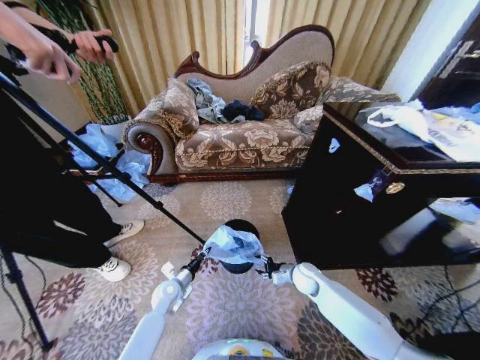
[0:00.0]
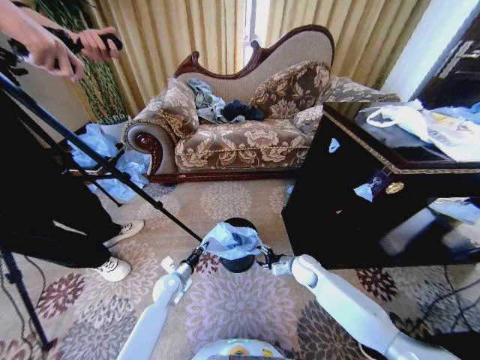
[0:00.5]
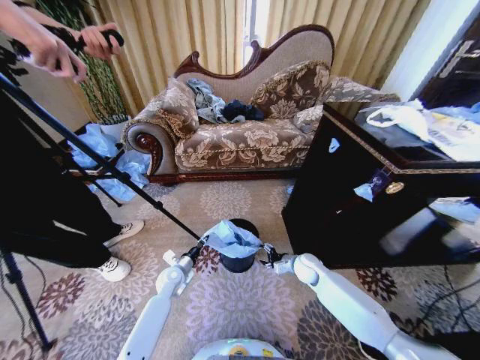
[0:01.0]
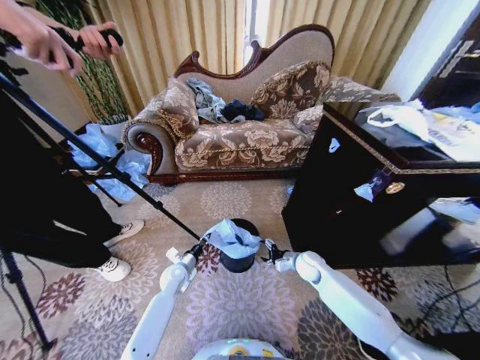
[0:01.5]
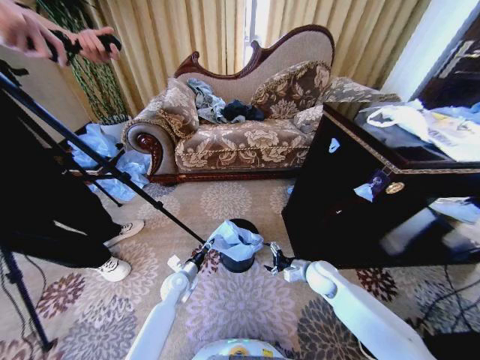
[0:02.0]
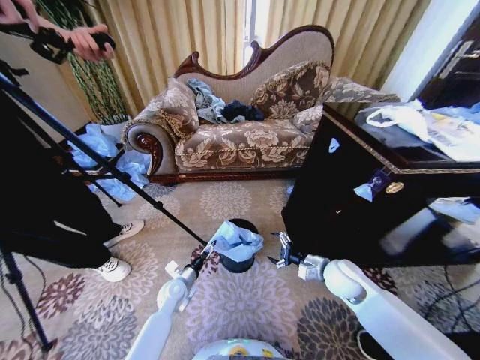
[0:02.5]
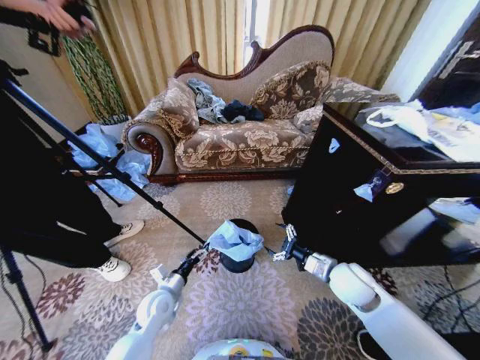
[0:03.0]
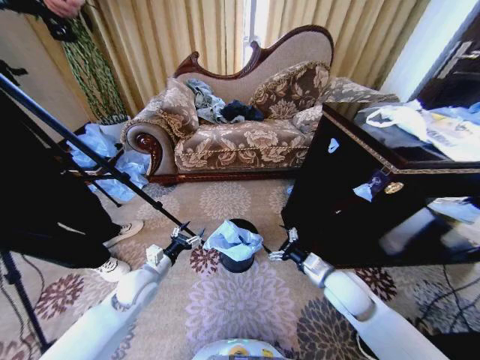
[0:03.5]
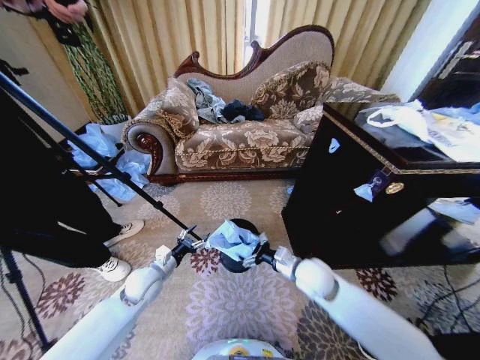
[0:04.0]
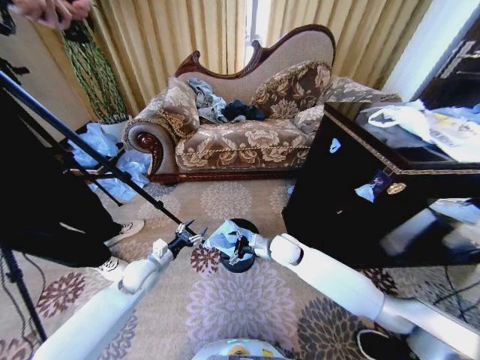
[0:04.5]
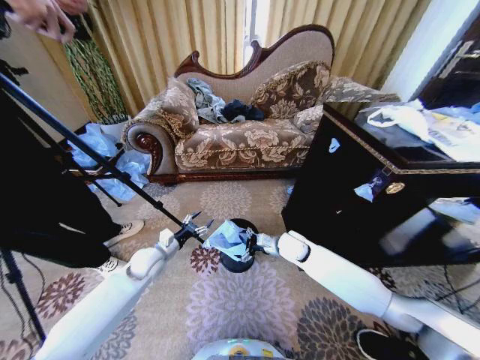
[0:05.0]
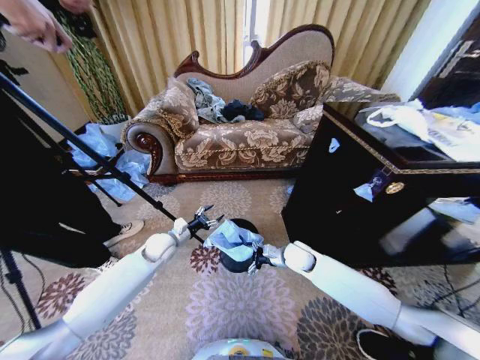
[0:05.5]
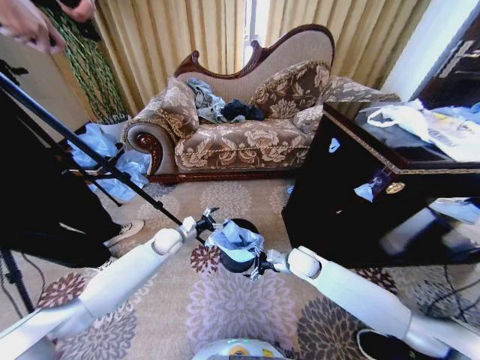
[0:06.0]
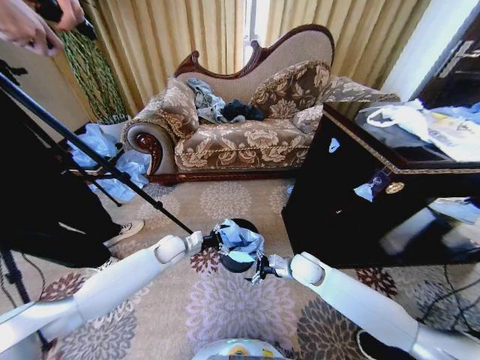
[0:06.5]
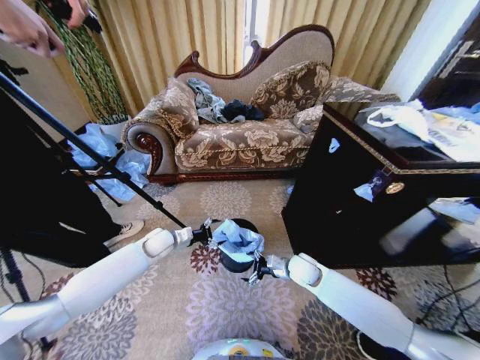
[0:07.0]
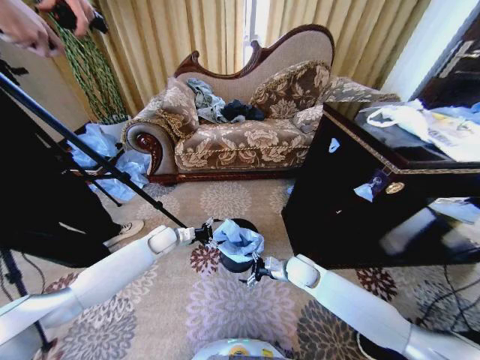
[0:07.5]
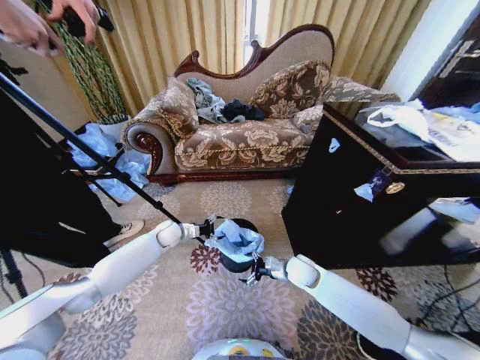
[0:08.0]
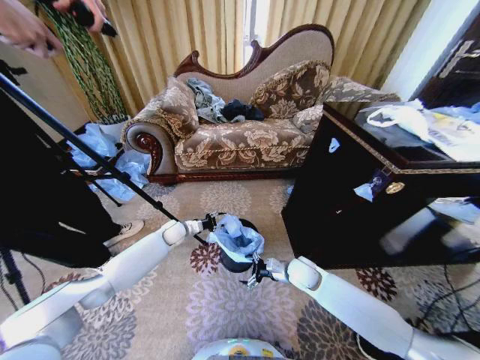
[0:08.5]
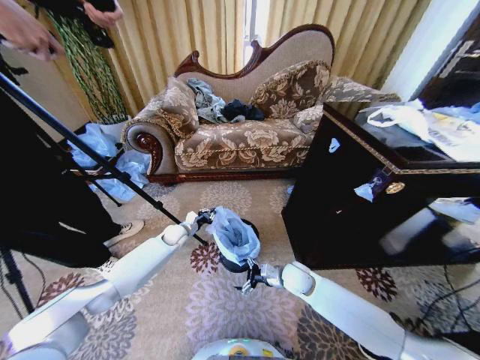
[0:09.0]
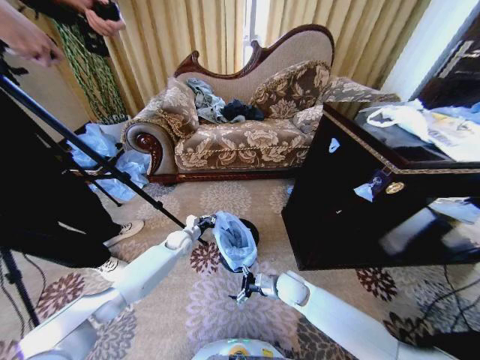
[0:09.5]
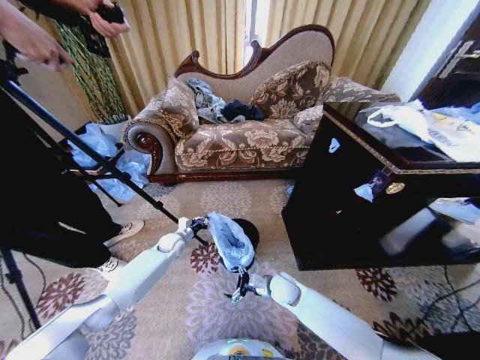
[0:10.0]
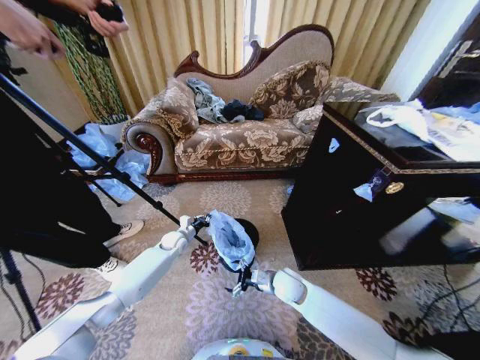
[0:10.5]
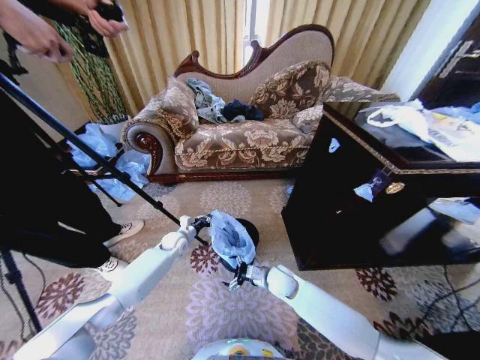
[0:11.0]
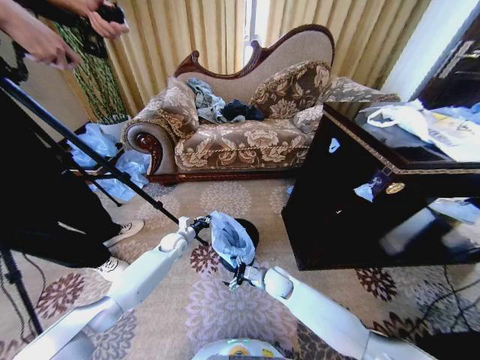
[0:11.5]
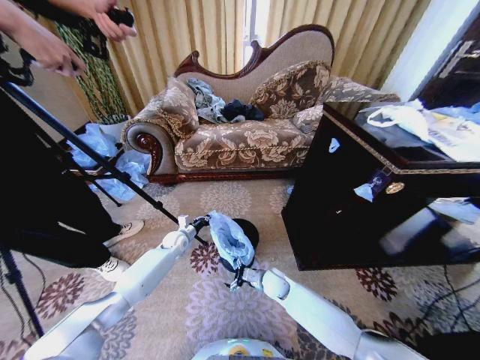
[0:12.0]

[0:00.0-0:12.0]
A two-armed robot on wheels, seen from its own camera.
Task of the whole recording: Place a garbage bag over the trash bin.
0:00.0 to 0:02.0: The right gripper shifts roughly 5 cm upward, and opens its fingers.
0:02.0 to 0:04.0: Both grippers move upward and to the left, about 10 cm. The left gripper opens its fingers.
0:04.0 to 0:06.0: The right gripper heads forward and downward, covering roughly 10 cm. Meanwhile the left gripper travels forward by about 15 cm.
0:08.0 to 0:10.0: The right gripper heads downward and to the left, covering approximately 10 cm, while the left gripper shifts approximately 5 cm downward, and closes.
0:10.0 to 0:12.0: The grippers make only small movements.

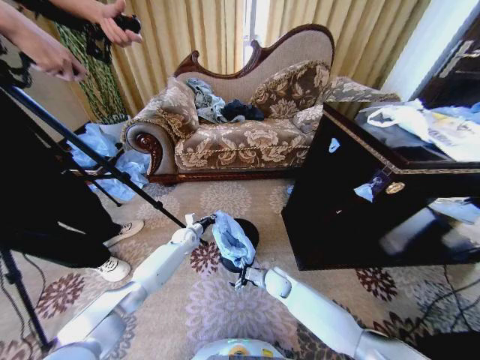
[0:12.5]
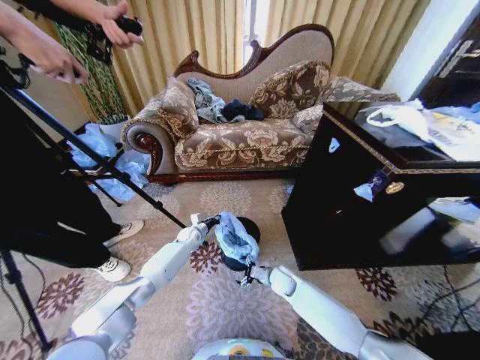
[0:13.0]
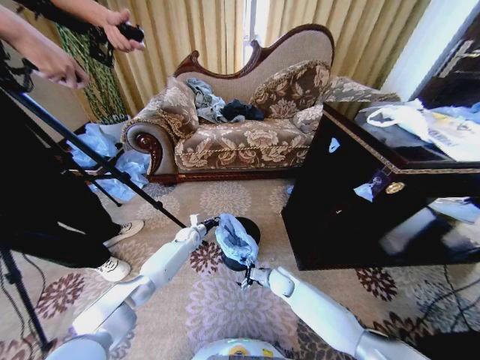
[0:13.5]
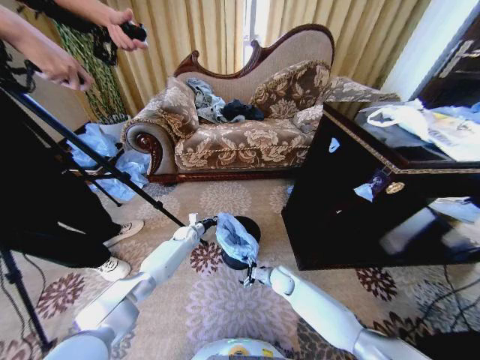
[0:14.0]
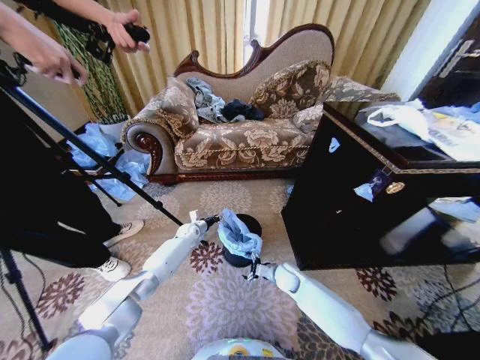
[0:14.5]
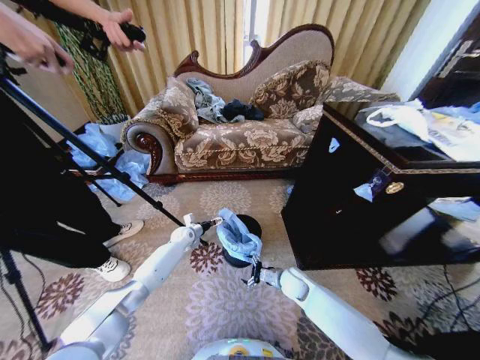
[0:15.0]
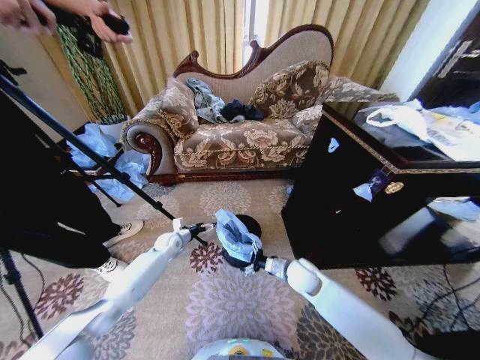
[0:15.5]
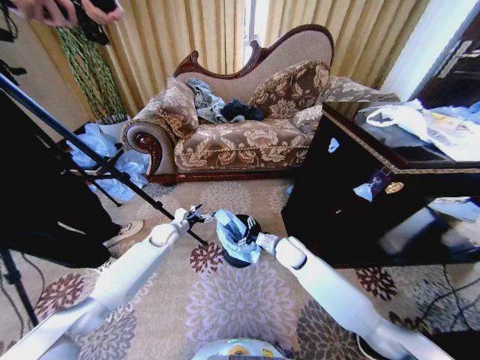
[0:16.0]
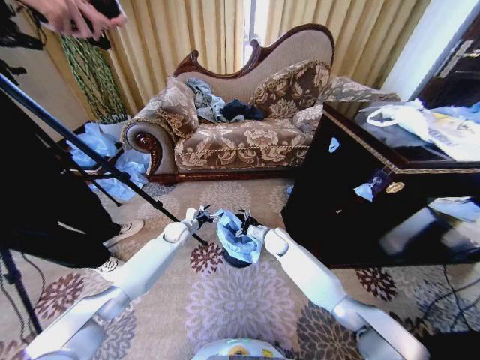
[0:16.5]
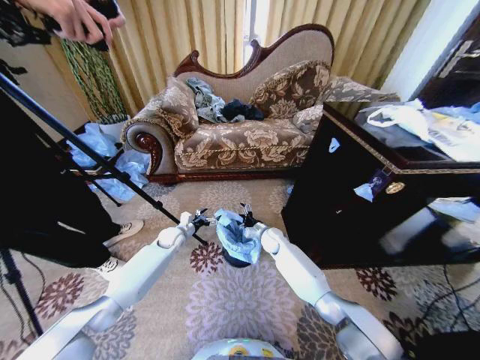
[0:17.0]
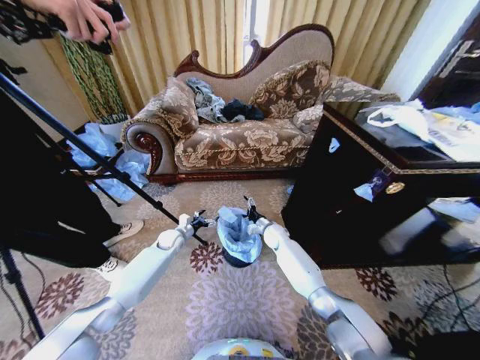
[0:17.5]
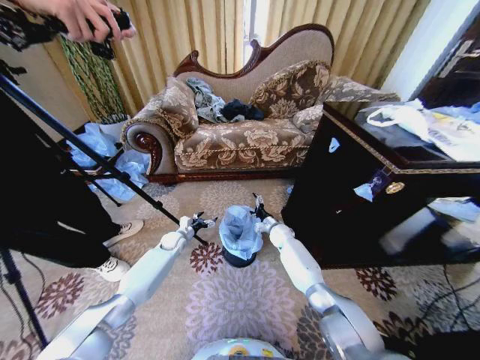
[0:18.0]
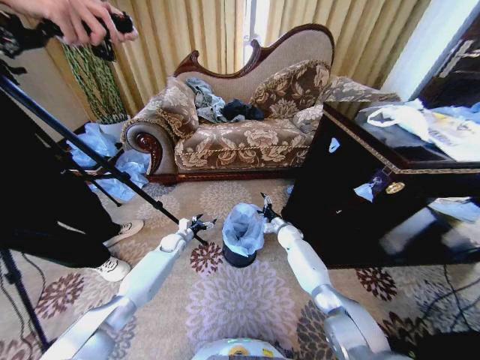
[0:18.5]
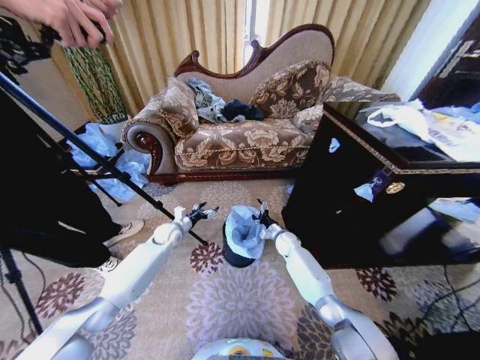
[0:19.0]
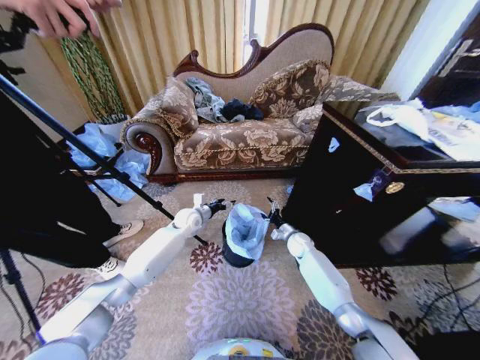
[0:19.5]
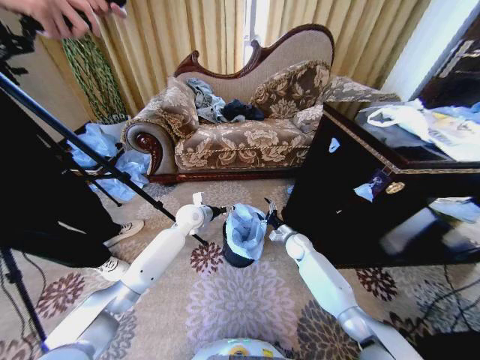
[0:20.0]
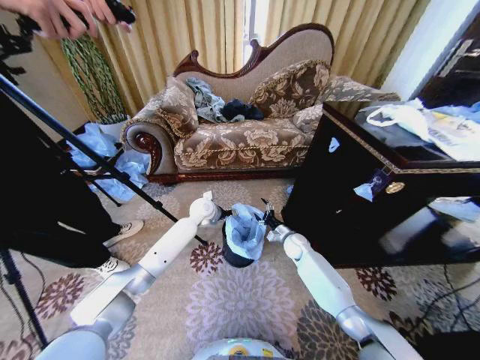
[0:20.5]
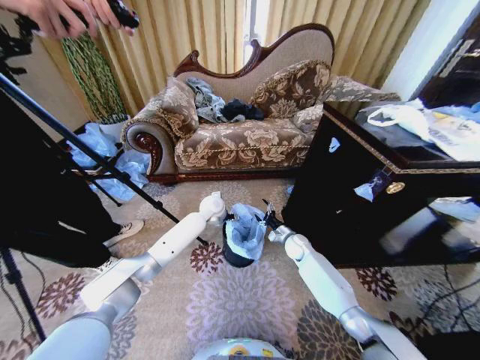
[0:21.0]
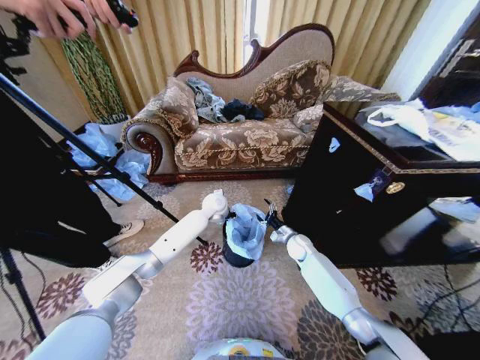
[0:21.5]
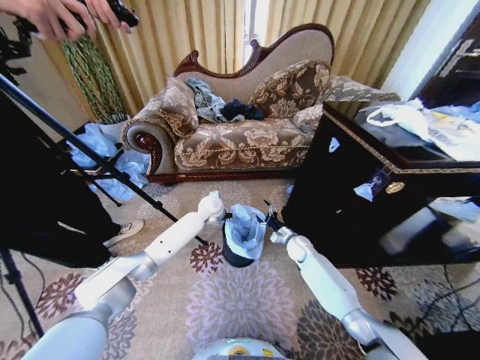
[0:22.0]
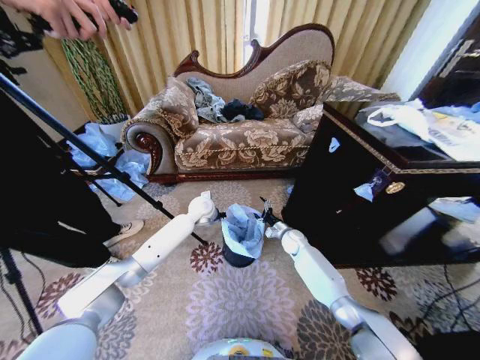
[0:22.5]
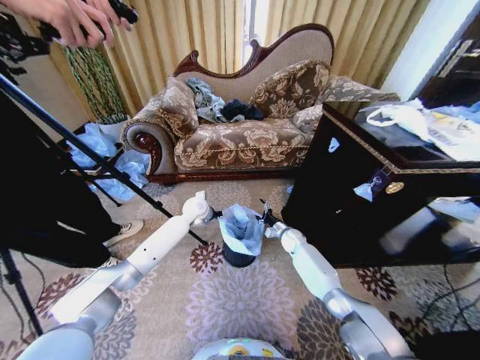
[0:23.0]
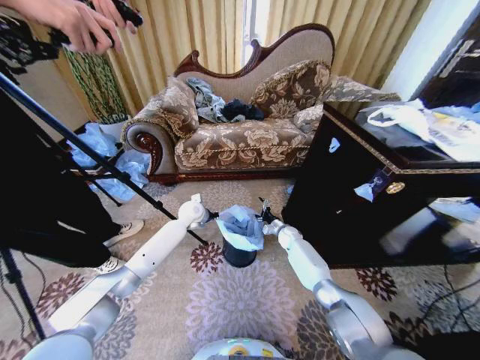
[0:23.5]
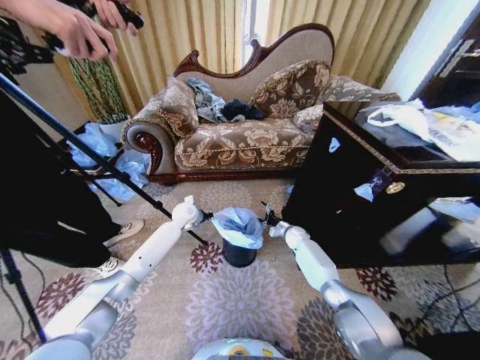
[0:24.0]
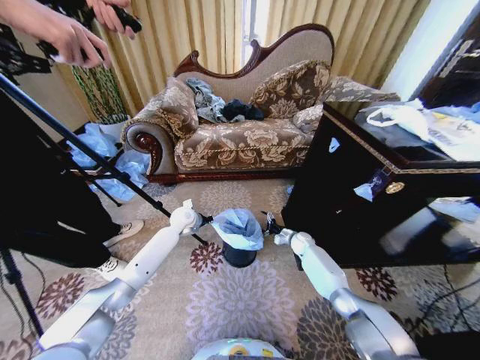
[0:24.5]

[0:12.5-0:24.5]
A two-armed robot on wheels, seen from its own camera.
Task of the whole recording: Place a garbage bag over the trash bin.
0:12.5 to 0:14.5: The left gripper opens.
0:14.5 to 0:16.5: The left gripper shifts some 5 cm upward, and opens up; the right gripper heads forward and upward, covering some 15 cm.
0:16.5 to 0:18.5: The left gripper is displaced downward by approximately 5 cm. The right gripper moves to the right, downward and forward, roughly 10 cm.
0:18.5 to 0:20.5: The right gripper moves backward, roughly 5 cm; the left gripper heads upward and to the right, covering roughly 25 cm.
0:20.5 to 0:22.5: The left gripper closes.
0:22.5 to 0:24.5: The left gripper is displaced to the left by approximately 10 cm; the right gripper shifts some 5 cm to the right.

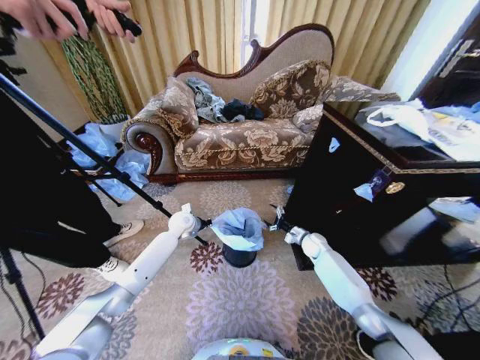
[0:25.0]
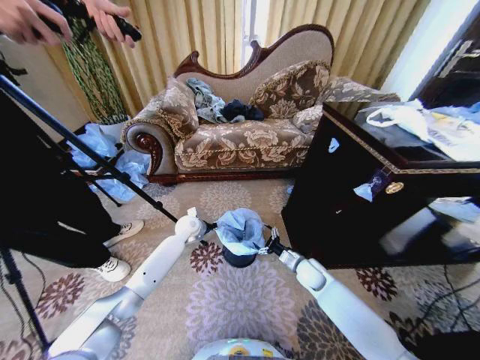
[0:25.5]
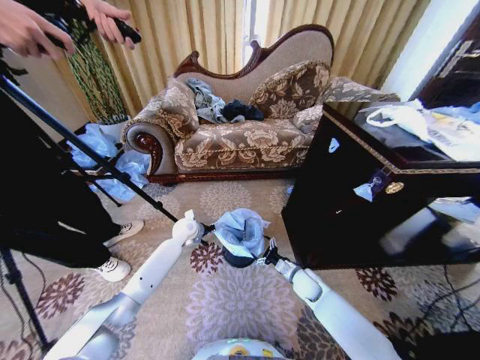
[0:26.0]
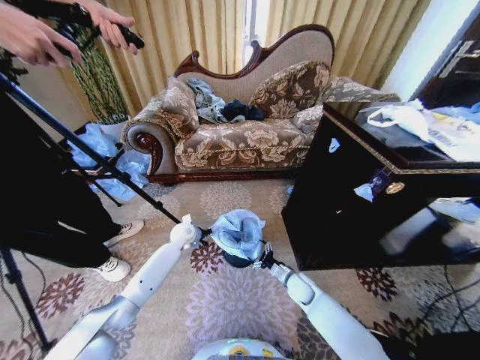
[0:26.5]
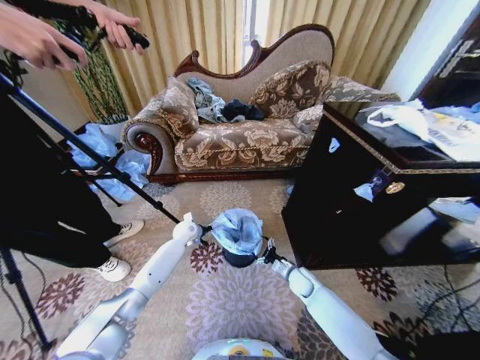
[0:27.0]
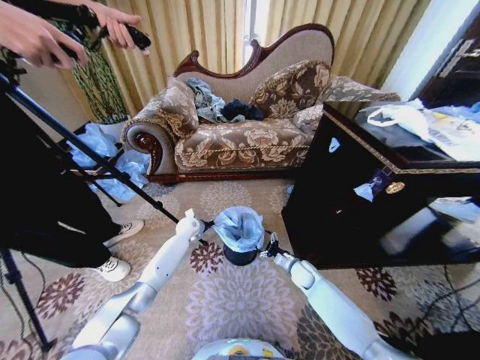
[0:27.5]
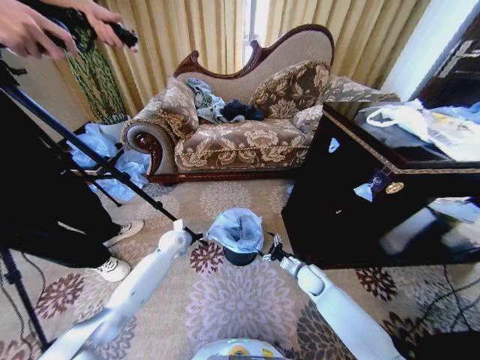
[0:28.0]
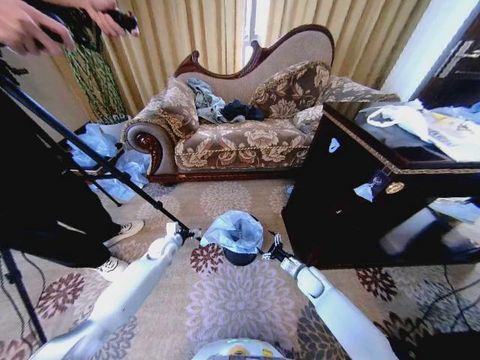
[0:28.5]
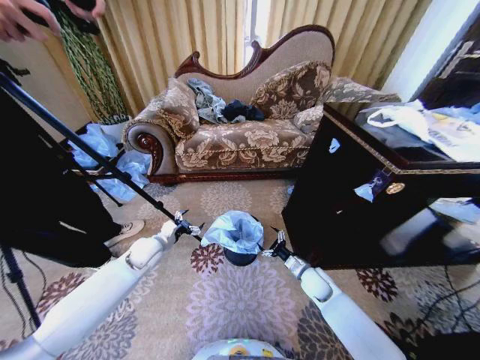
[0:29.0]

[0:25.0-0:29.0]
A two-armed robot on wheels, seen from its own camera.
Task of the whole recording: Place a garbage bag over the trash bin.
0:25.0 to 0:27.0: The left gripper moves downward, approximately 5 cm. Meanwhile the right gripper shifts approximately 15 cm backward, to the left and downward.
0:27.0 to 0:29.0: The left gripper moves backward, to the left and upward, about 15 cm, and opens. Meanwhile the right gripper travels upward by some 5 cm.
